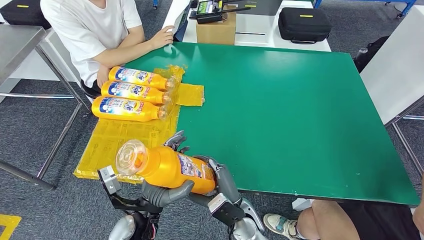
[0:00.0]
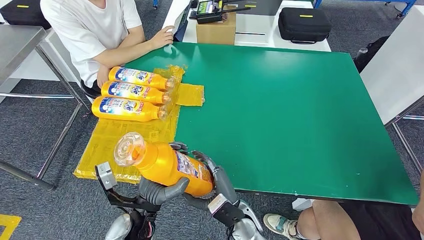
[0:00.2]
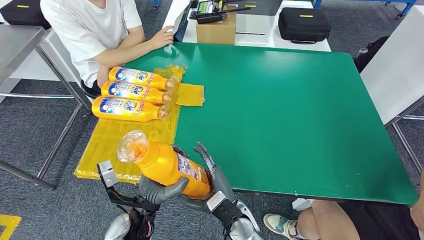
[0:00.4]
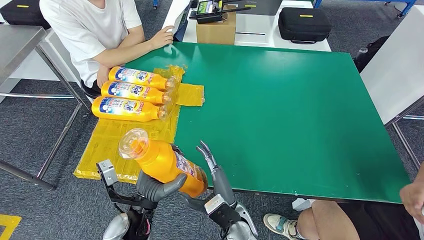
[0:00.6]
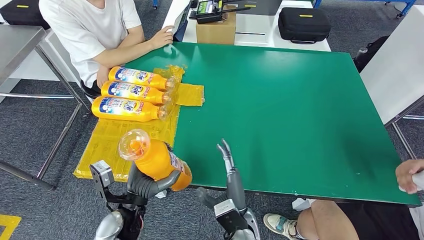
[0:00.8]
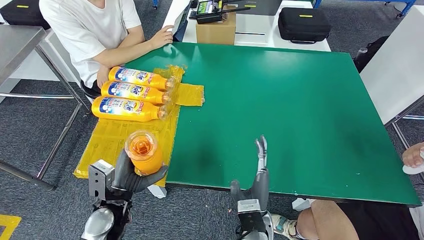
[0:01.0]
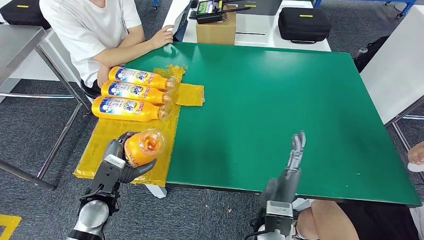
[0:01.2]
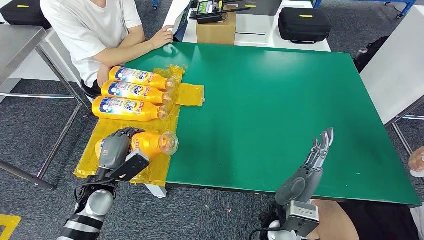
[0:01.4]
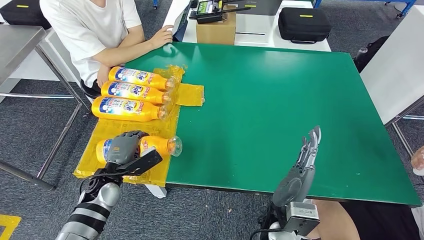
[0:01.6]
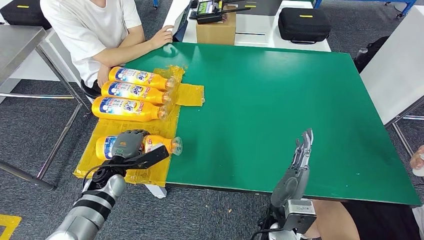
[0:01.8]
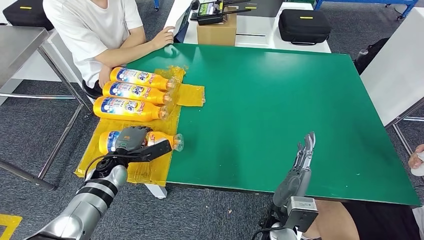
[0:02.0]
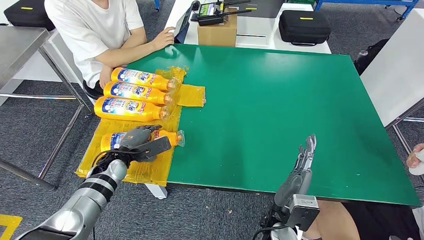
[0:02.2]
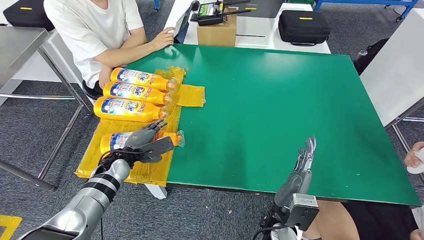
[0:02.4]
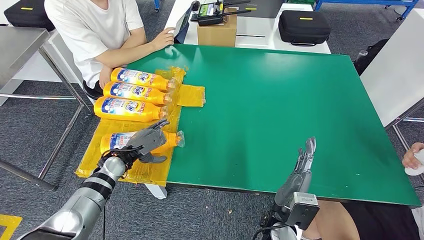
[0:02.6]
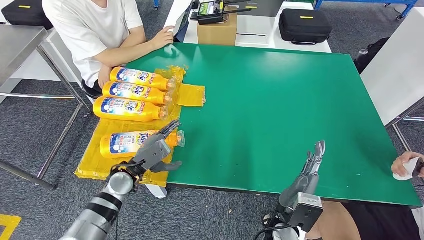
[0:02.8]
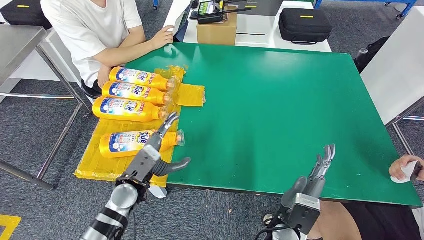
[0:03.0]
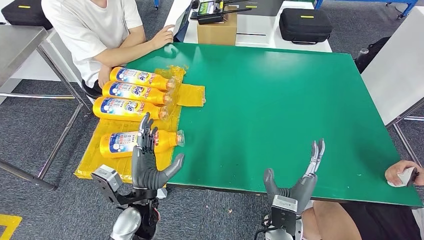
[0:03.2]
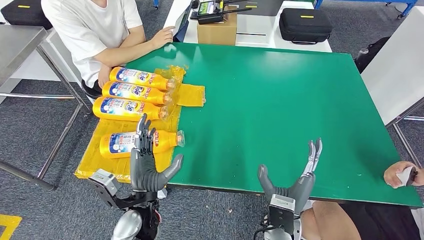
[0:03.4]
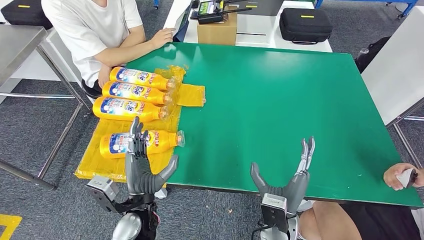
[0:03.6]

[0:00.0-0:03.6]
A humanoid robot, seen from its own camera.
Step, 0:00.0 to 0:03.6: Flip the fast-moving consumer goods bottle to the front side.
0:00.0 to 0:01.8: The left hand shifts about 20 cm to the left and forward. Meanwhile the right hand shifts roughly 10 cm to the right and upward.
0:01.8 to 0:03.6: The left hand moves to the right and backward, approximately 20 cm.
